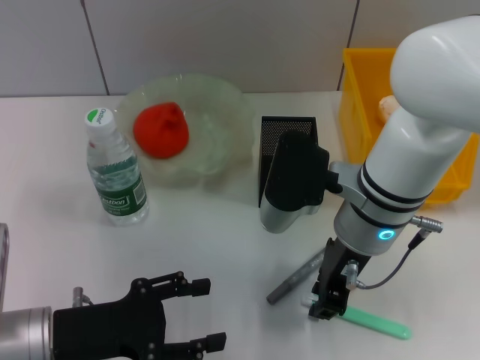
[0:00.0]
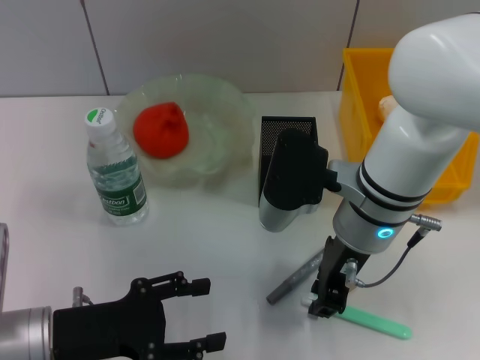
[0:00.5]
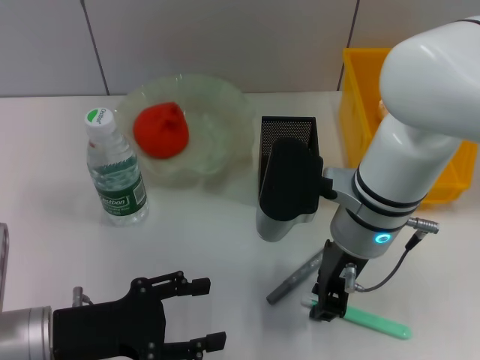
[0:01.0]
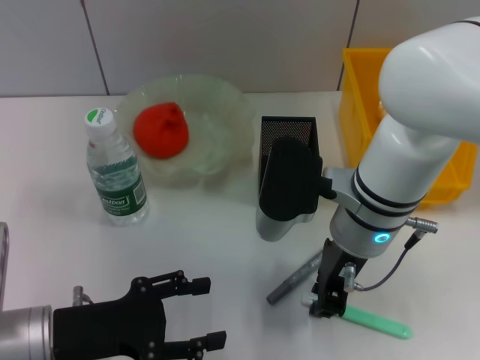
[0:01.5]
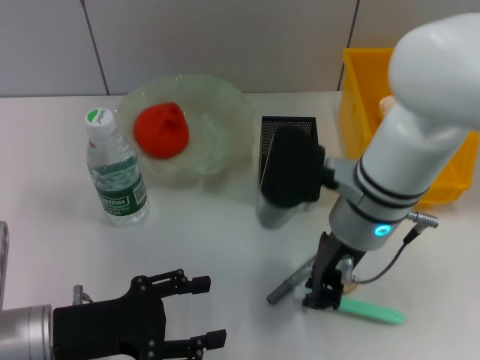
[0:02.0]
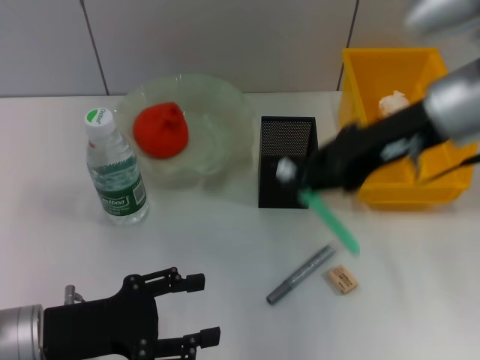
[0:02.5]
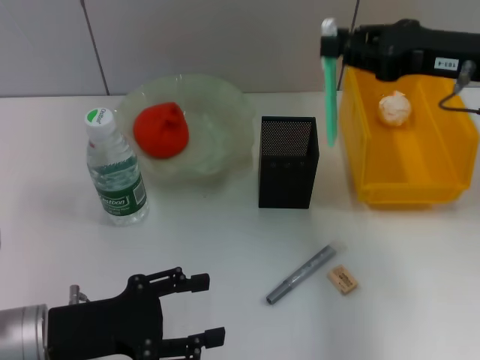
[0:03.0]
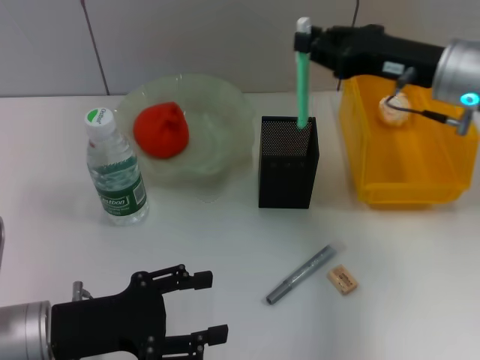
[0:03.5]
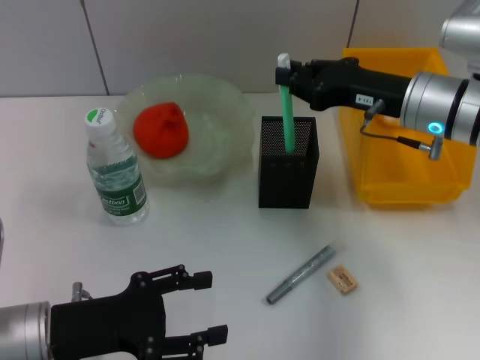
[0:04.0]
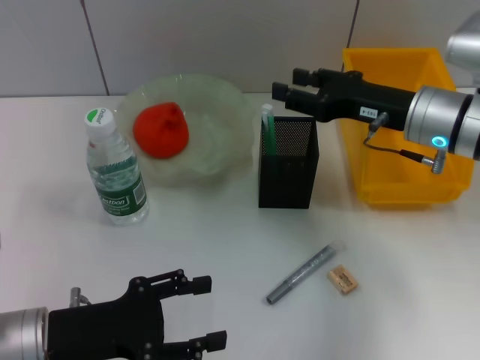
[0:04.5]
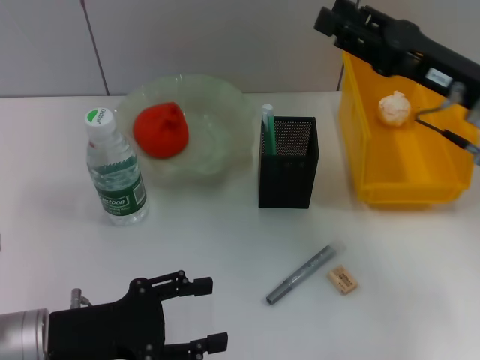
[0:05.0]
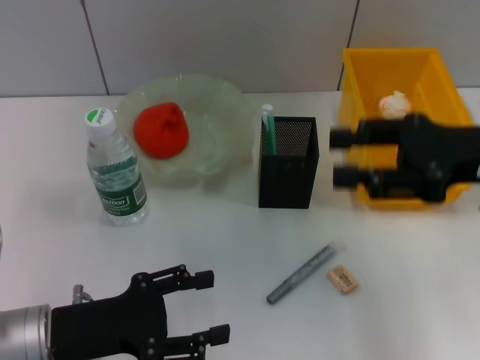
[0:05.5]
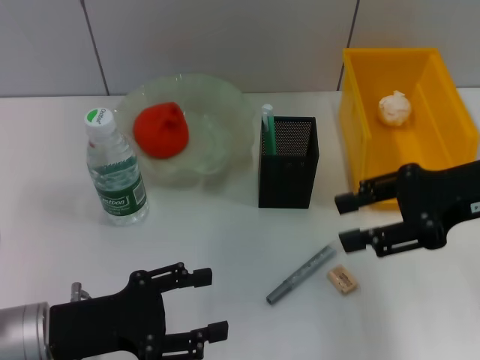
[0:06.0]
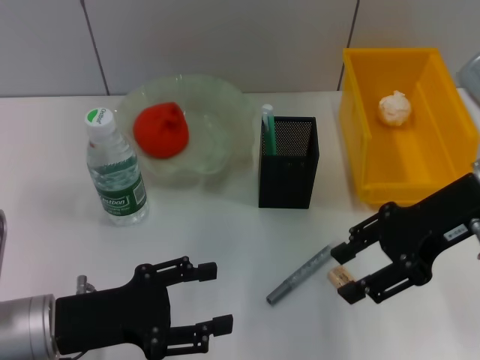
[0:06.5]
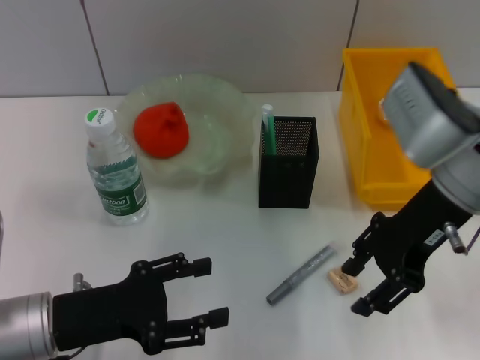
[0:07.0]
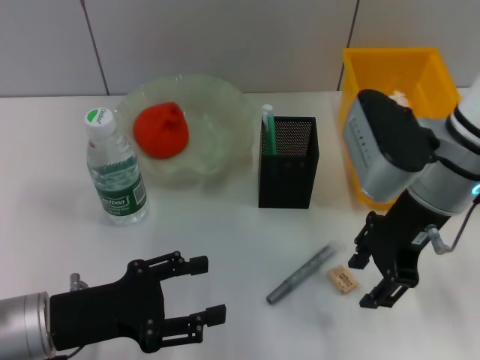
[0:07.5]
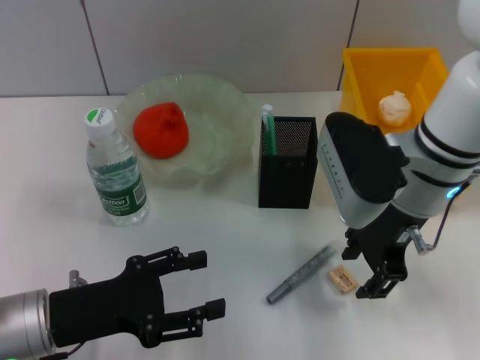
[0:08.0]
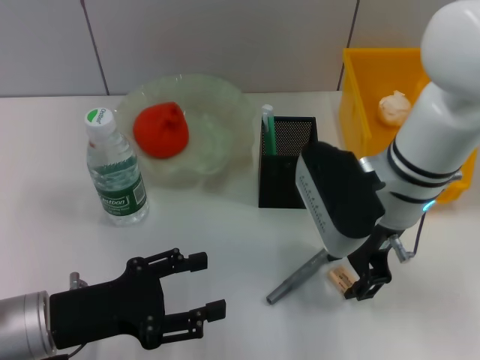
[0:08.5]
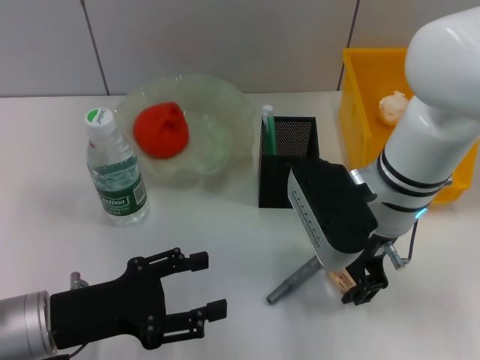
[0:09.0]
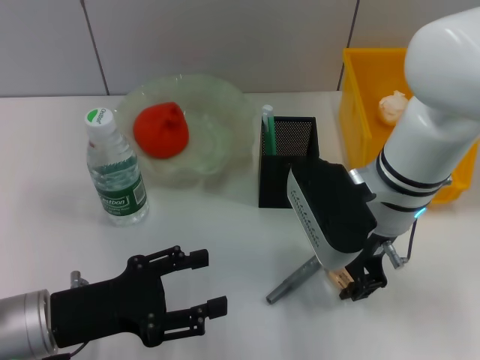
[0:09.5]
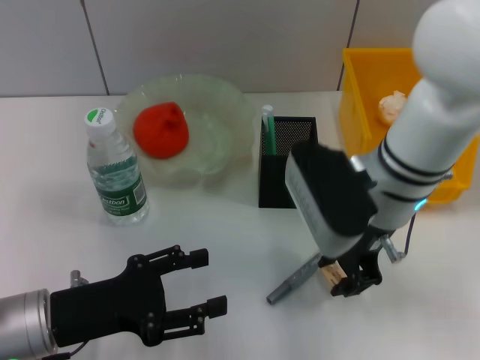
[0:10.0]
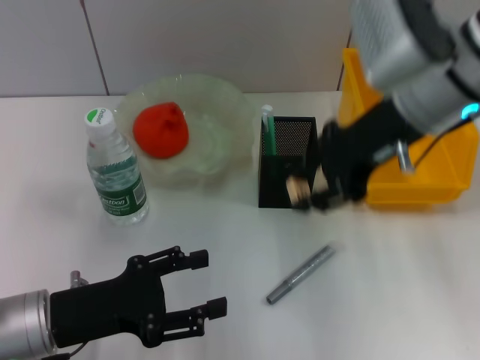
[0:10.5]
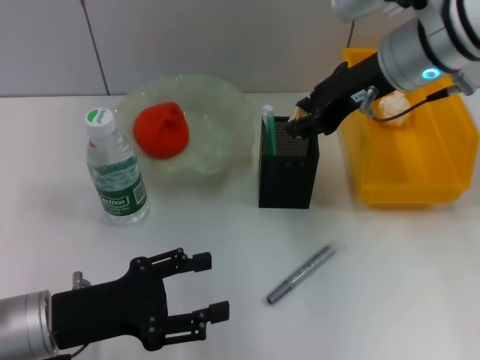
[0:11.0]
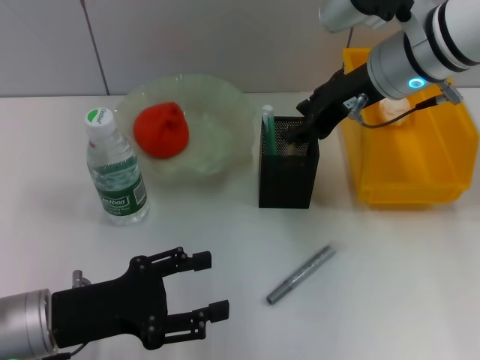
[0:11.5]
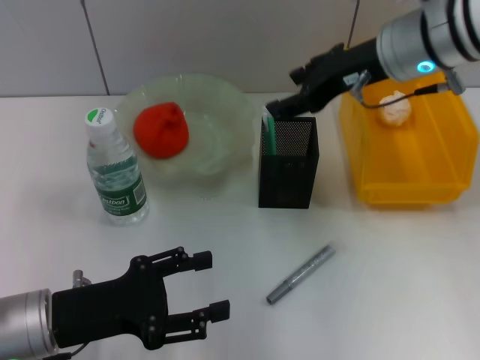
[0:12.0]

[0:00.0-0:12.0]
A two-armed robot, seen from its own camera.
Step, 0:02.0 to 0:04.5: Place the blue utility knife into the pen holder with the right hand.
Step, 0:05.0 to 0:09.5: Grab the eraser with the right hand.
Step, 0:10.0 to 0:11.5: Put the eraser into the pen holder with the right hand.
0:00.0 to 0:02.0: Neither gripper changes place.
0:02.0 to 0:04.0: The right gripper shifts approximately 15 cm to the right and forward.
0:04.0 to 0:06.0: The right gripper heads backward and to the right, covering roughly 10 cm, and opens.
0:06.0 to 0:08.0: The right gripper shifts roughly 10 cm to the left.
0:08.0 to 0:10.0: The grippers move only a little.
0:10.0 to 0:12.0: The right gripper is displaced upward and forward by roughly 10 cm, and opens.

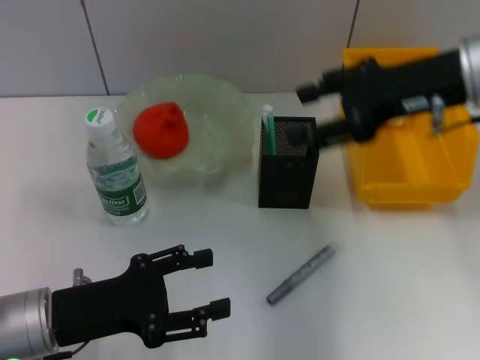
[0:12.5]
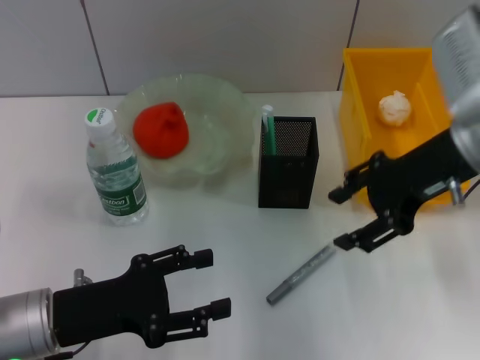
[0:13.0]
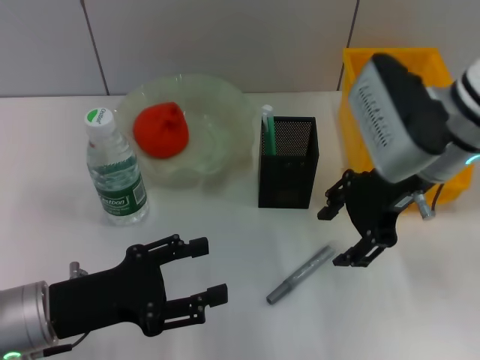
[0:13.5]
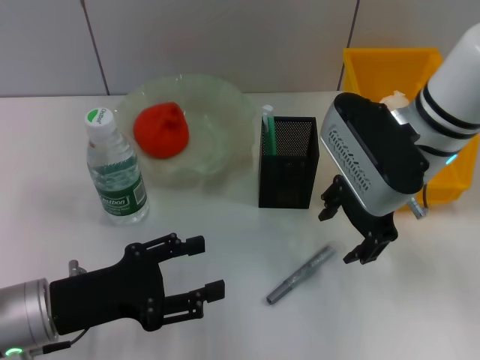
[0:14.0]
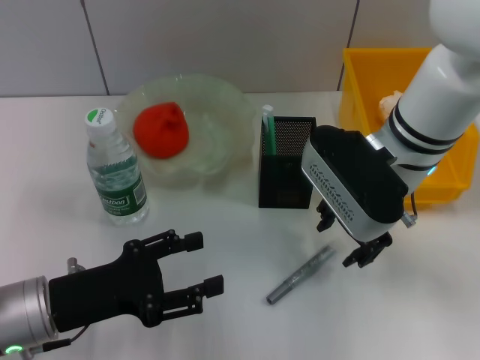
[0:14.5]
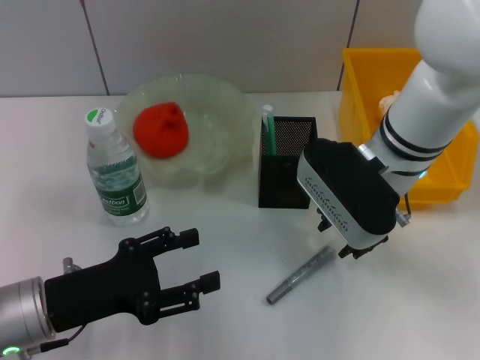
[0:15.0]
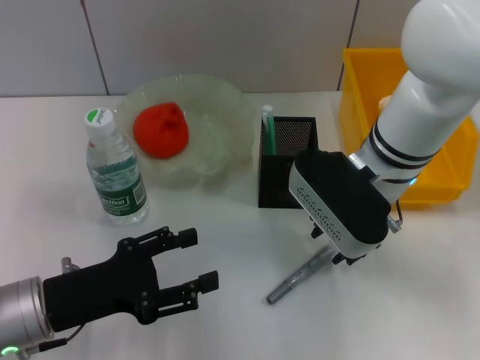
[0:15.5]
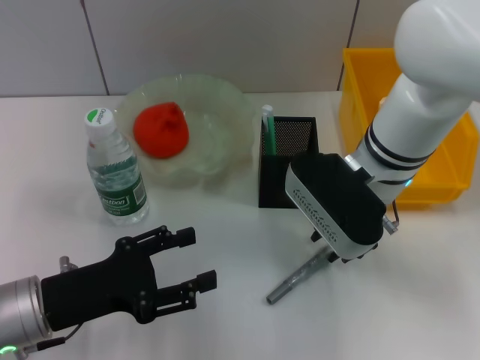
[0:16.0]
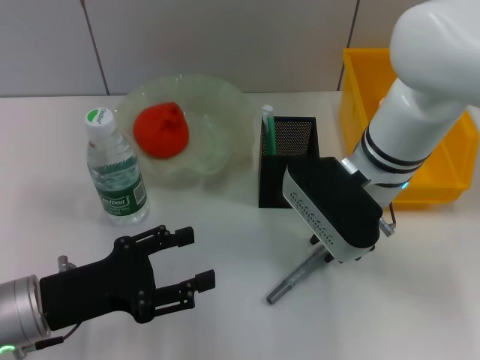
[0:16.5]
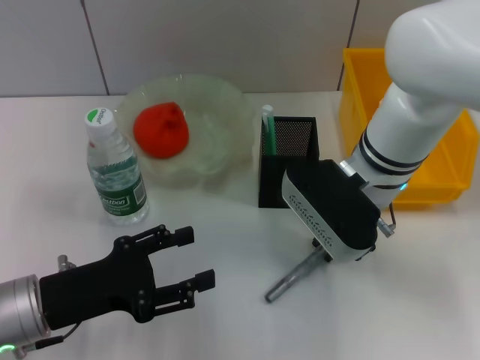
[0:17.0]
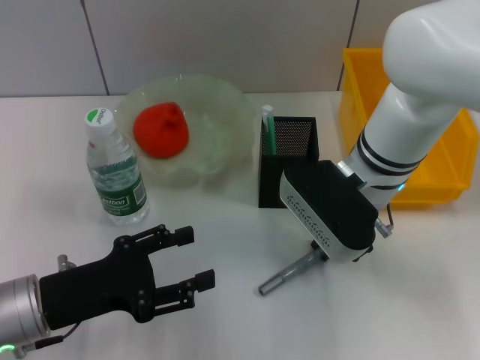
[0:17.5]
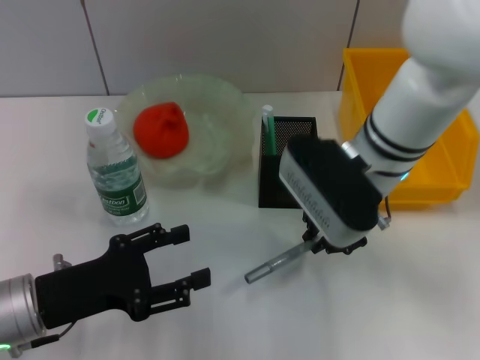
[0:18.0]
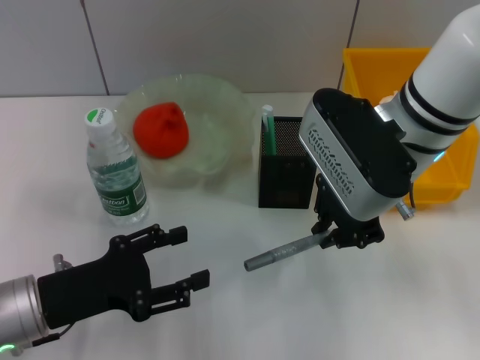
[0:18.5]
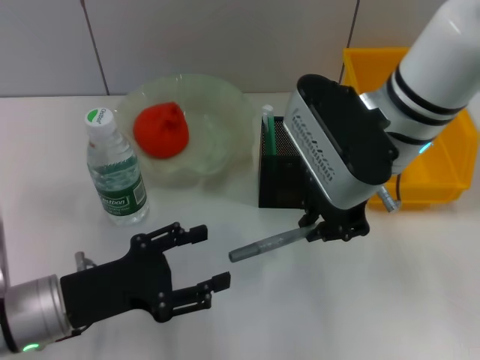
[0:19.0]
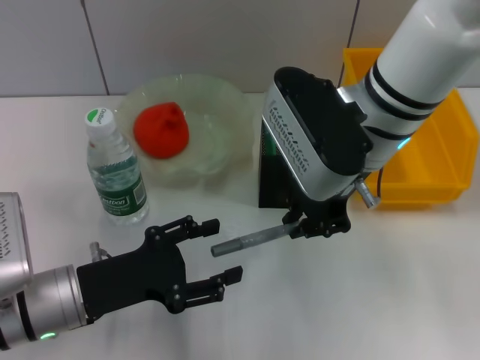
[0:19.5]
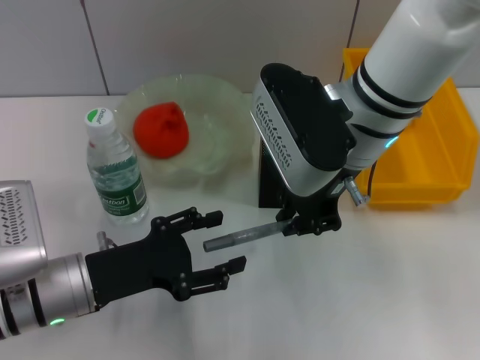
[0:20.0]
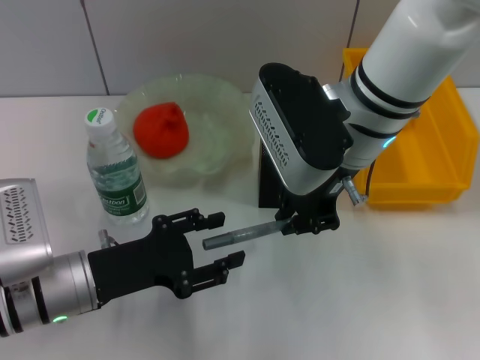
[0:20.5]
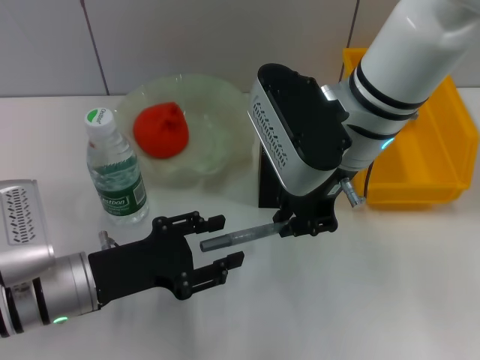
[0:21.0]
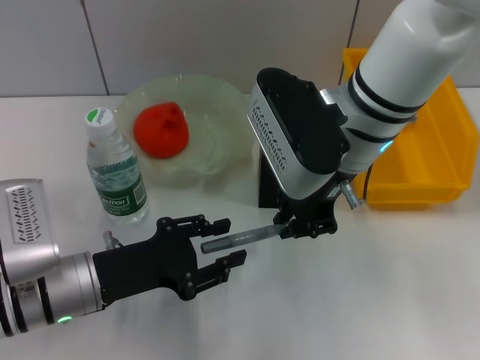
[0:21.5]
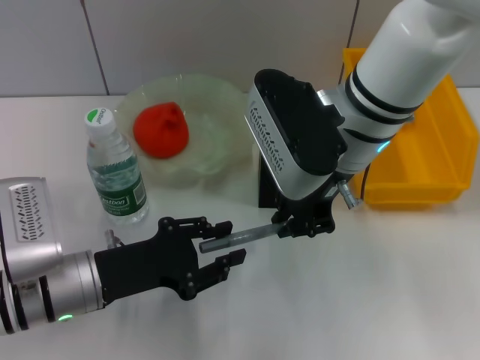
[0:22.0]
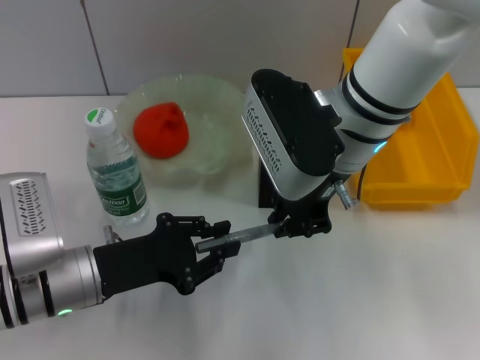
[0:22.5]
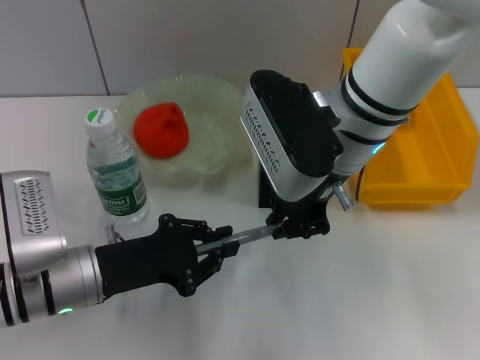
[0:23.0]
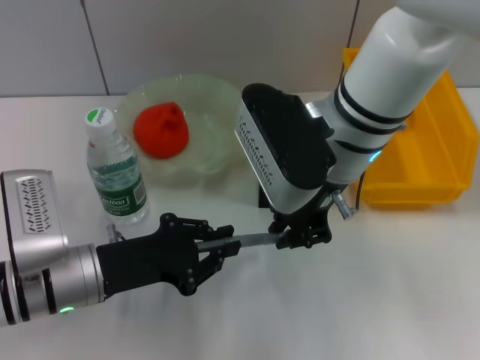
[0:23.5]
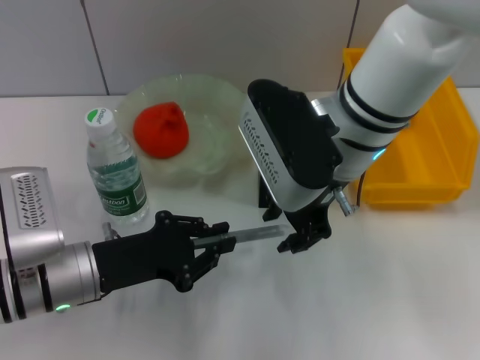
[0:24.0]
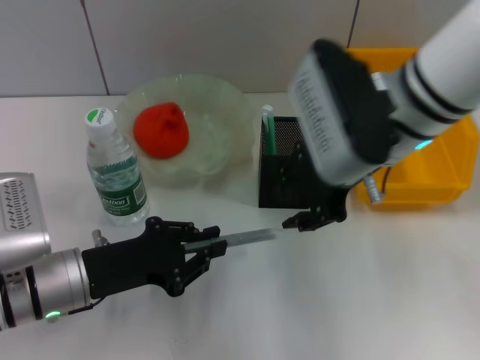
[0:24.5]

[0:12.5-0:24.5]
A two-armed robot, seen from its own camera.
Step, 0:12.5 to 0:17.5: Grab the gray glue with the right hand.
Step, 0:18.0 to 0:23.5: Pass the gray glue from the right hand to the left hand.
0:12.5 to 0:14.5: The right gripper goes approximately 10 cm to the left and downward.
0:14.5 to 0:16.5: The right gripper closes up.
0:16.5 to 0:18.5: The right gripper shifts about 5 cm upward.
0:20.5 to 0:22.5: The left gripper closes its fingers.
0:22.5 to 0:24.5: The right gripper opens.

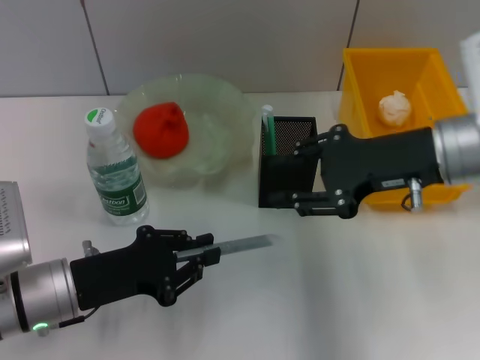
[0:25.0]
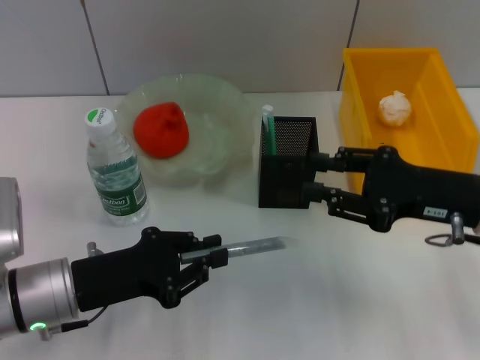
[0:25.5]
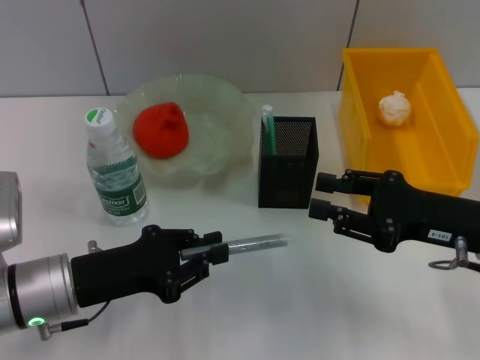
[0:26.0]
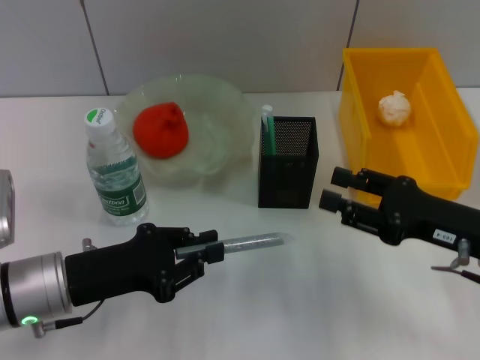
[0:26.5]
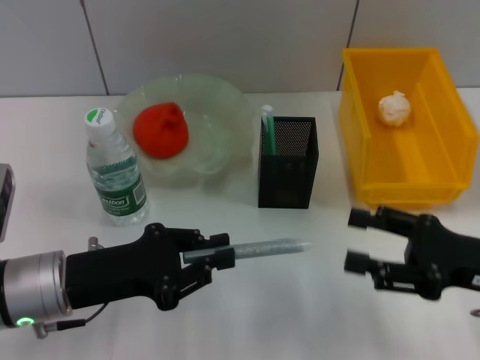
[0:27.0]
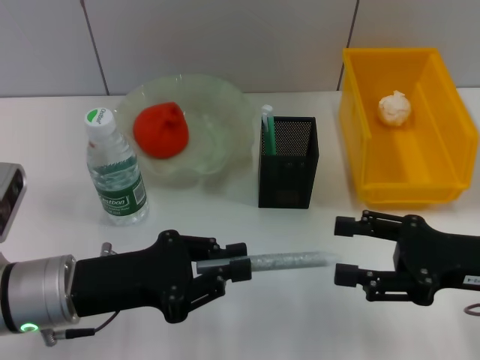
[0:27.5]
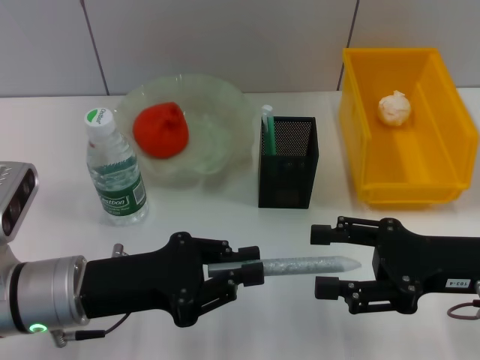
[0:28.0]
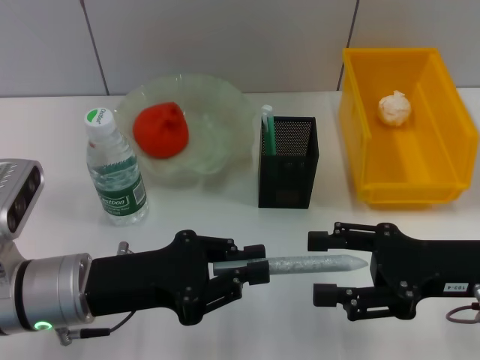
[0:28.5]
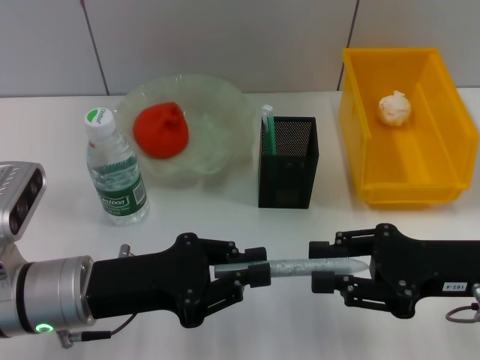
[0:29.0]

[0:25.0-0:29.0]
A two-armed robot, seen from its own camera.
0:25.0 to 0:27.0: The right gripper moves backward, downward and to the right, approximately 15 cm, and opens.
0:27.0 to 0:29.0: The right gripper closes up.
